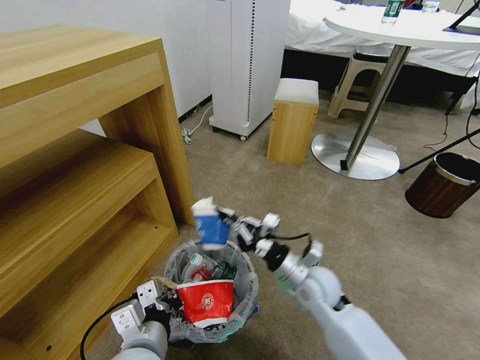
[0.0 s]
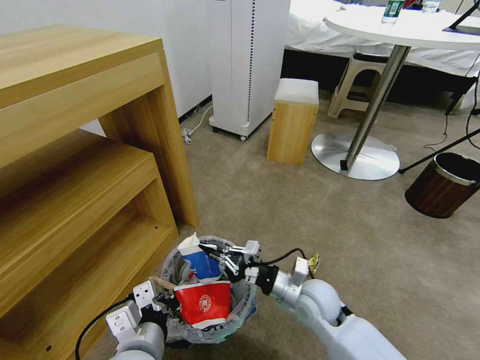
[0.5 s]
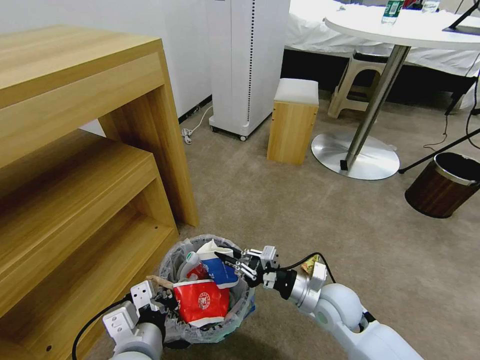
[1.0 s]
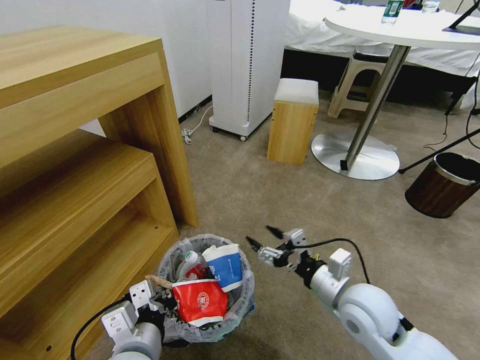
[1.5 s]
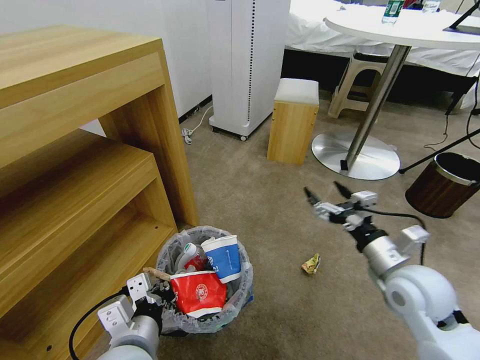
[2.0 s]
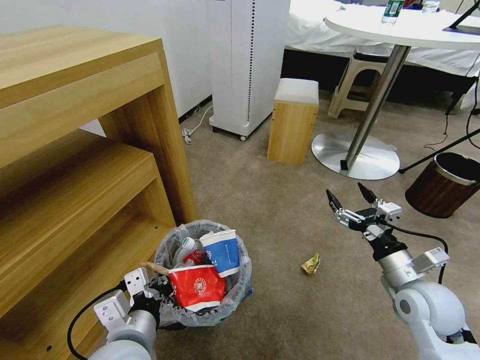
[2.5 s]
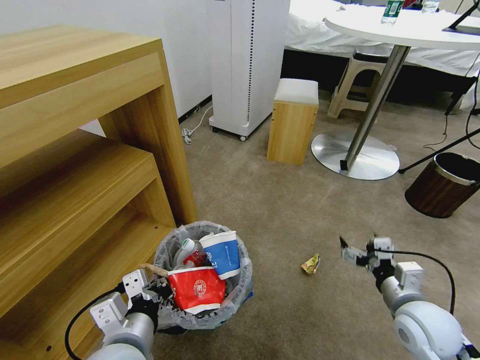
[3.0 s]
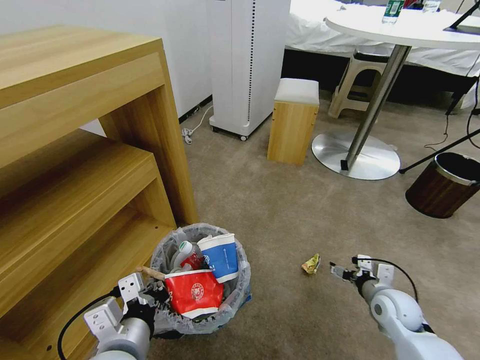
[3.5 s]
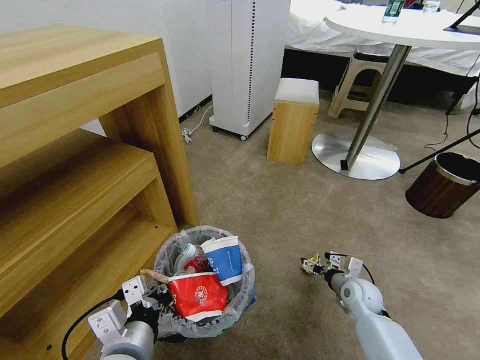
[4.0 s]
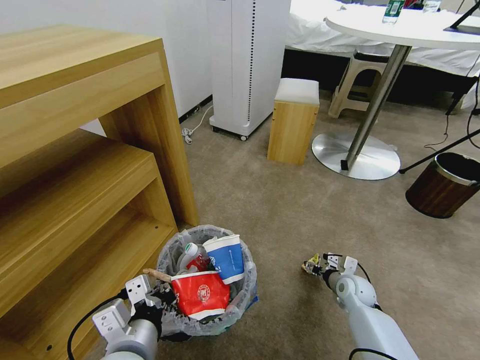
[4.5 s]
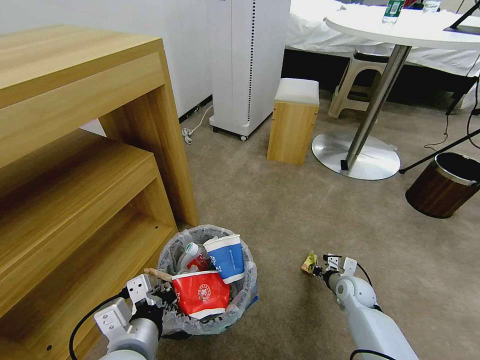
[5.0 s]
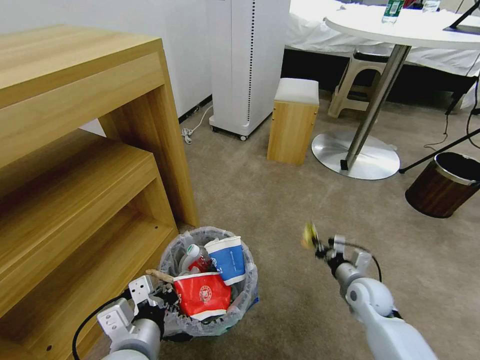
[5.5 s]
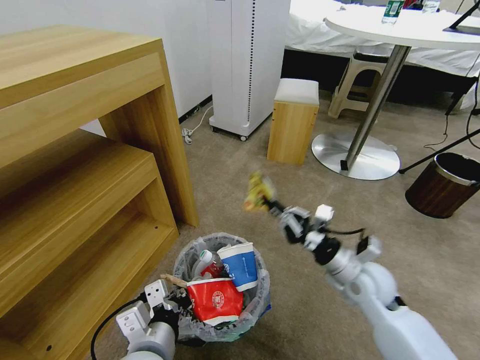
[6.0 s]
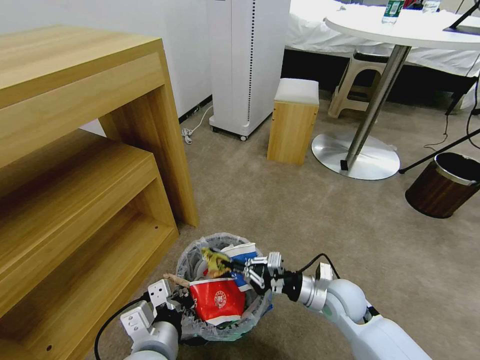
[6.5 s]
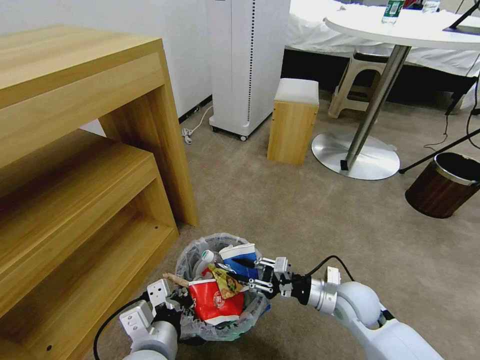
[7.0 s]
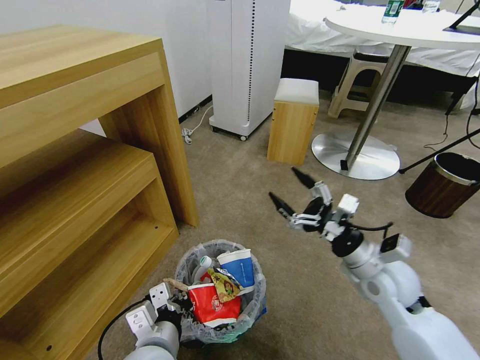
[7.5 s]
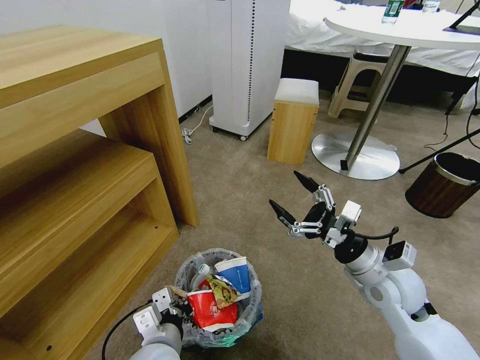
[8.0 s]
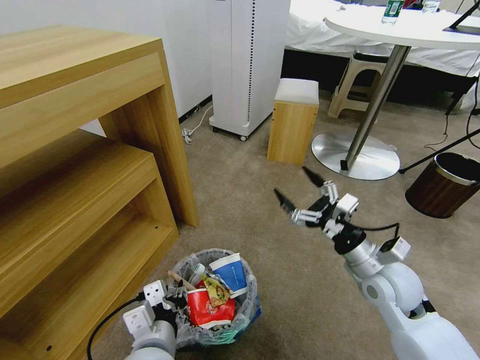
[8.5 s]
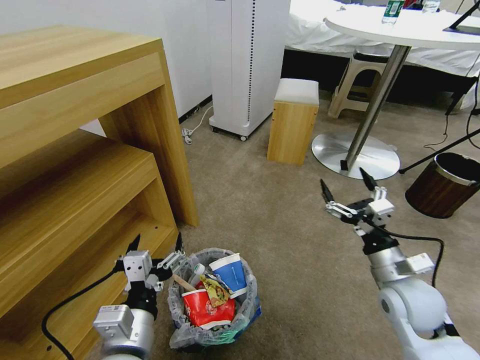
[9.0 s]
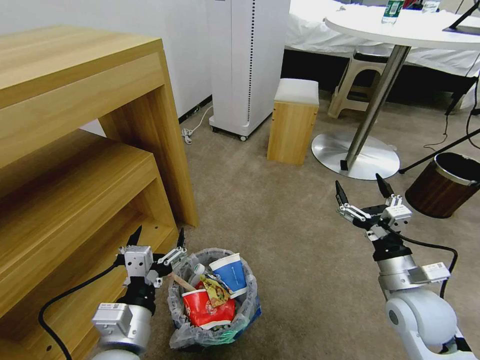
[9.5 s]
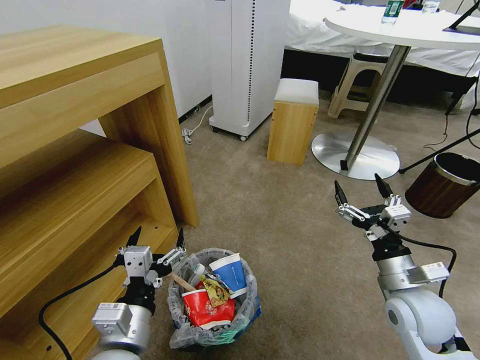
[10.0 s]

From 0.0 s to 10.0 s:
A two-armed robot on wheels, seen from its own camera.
Task of the whole recording: Pick up the trash bin and place the garbage on the floor into it.
From 0.0 s to 2.0 s: The right gripper moves to the right and upward, about 15 cm, and opens its fingers.
From 2.0 s to 4.0 s: The right gripper shifts about 20 cm downward.
From 4.0 s to 6.0 s: The right gripper travels upward and to the left by some 15 cm, and closes its fingers.
From 6.0 s to 8.0 s: The left gripper heads downward, covering roughly 5 cm, while the right gripper changes place by roughly 5 cm, and opens its fingers.
From 8.0 s to 10.0 s: The left gripper heads upward, covering some 5 cm, and opens, while the right gripper ends up approximately 5 cm from where it was.

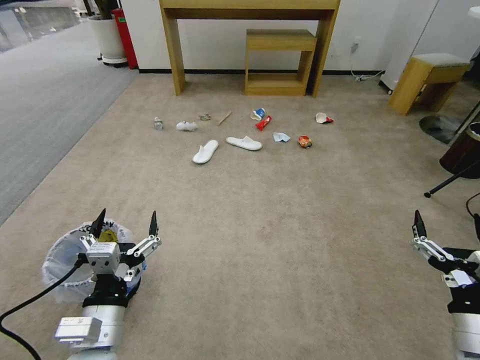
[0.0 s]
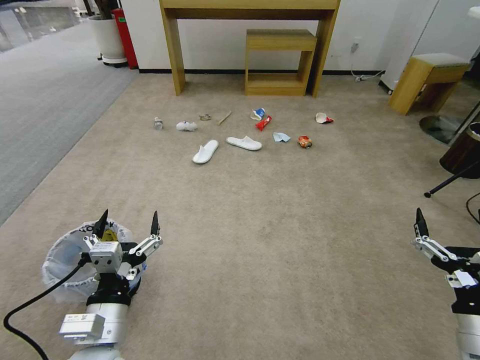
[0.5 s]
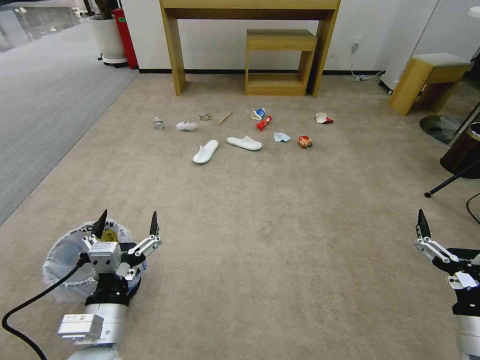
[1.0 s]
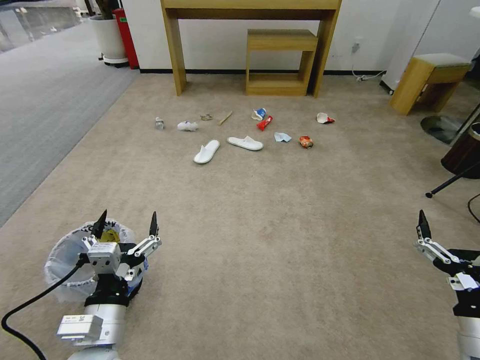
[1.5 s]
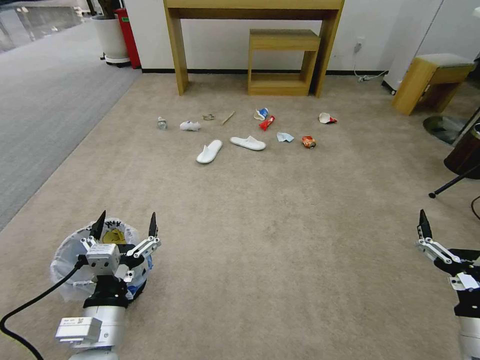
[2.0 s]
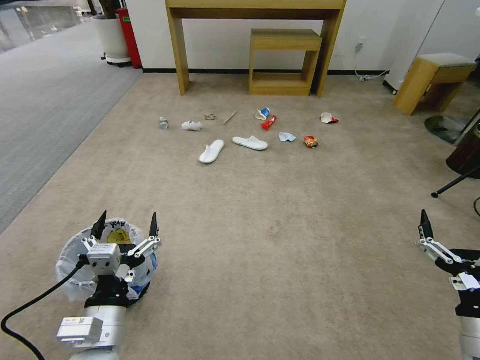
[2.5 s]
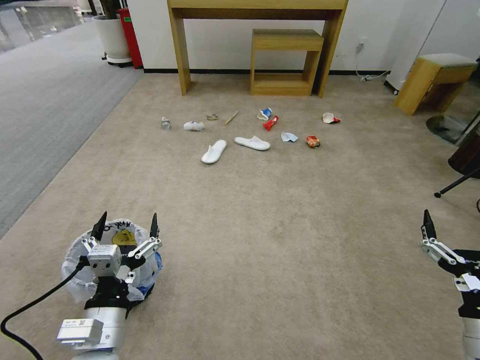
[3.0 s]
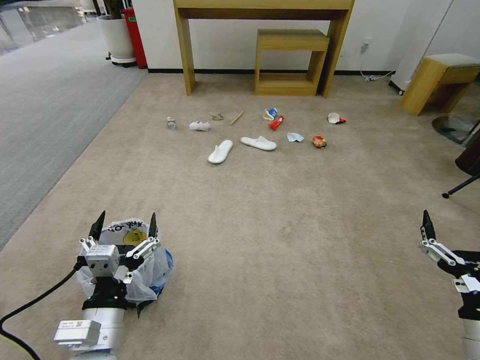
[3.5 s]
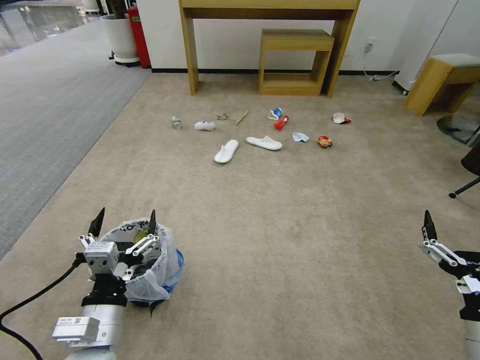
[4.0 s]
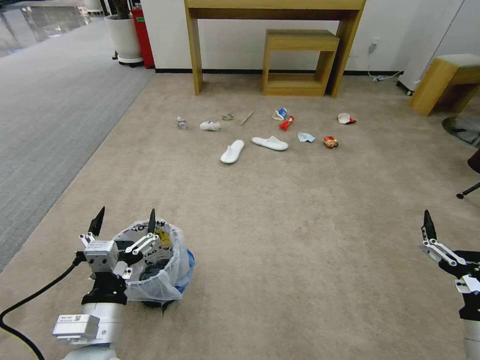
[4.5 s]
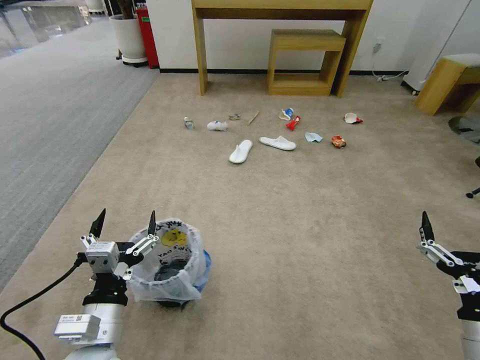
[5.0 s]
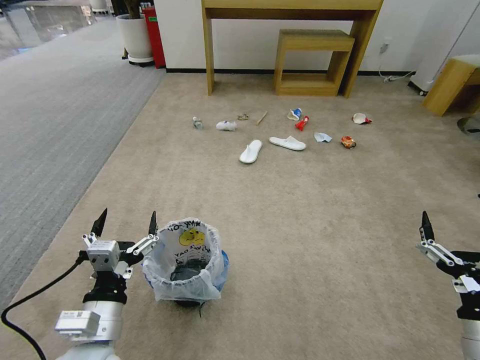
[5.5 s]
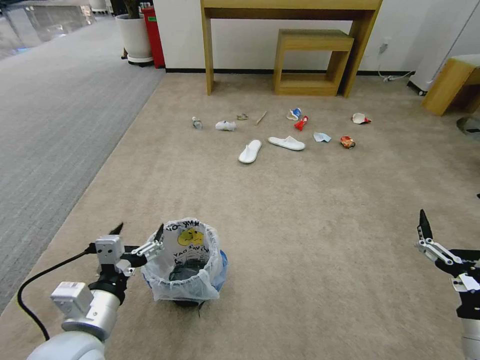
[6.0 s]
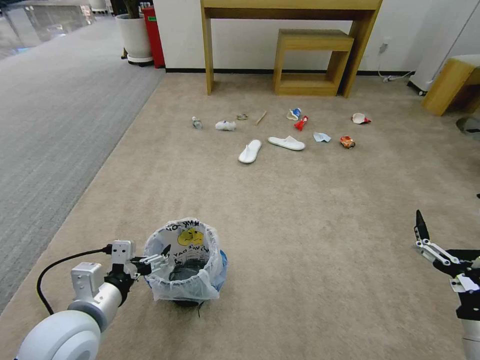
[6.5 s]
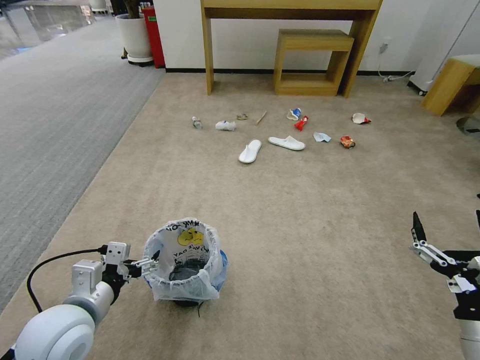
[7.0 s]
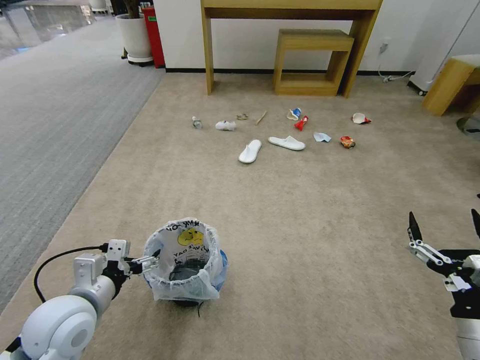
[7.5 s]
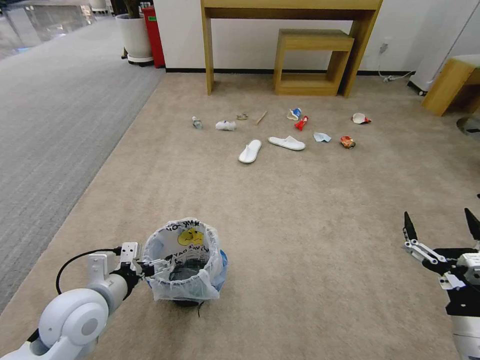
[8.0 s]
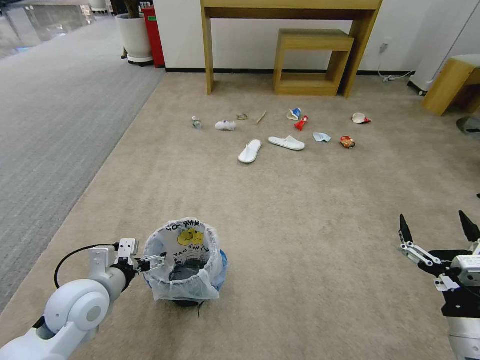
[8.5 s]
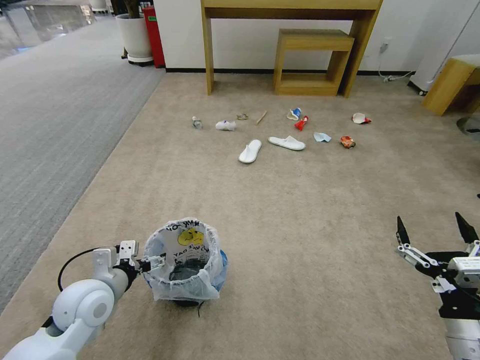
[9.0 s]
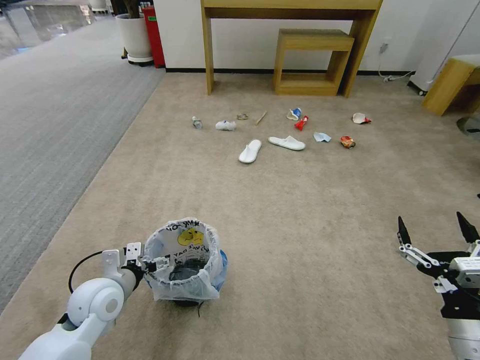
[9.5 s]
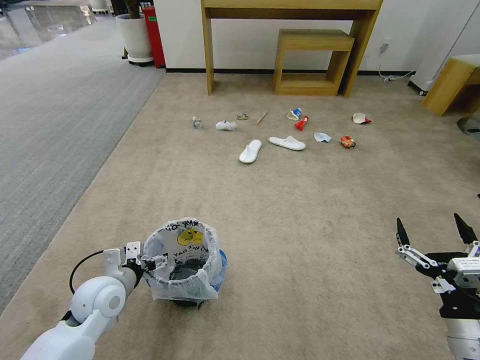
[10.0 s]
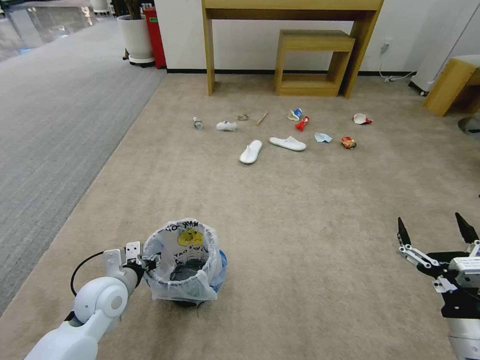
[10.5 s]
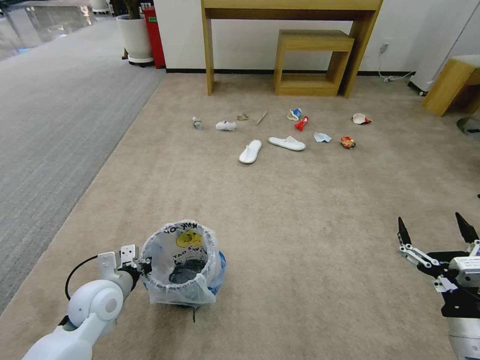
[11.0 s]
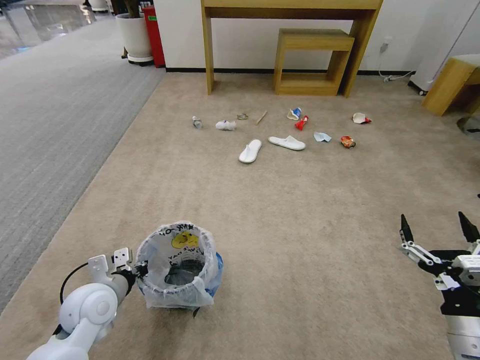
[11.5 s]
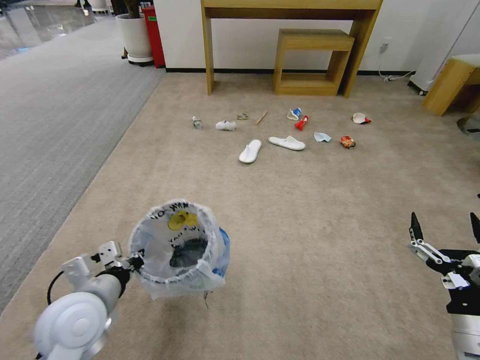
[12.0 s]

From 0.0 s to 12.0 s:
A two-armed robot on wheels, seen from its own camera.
Task of the whole recording: Pick up the trash bin and place the garbage on the floor into it.
From 2.0 s to 4.0 s: The two grippers keep their place.
From 6.0 s to 8.0 s: The left gripper is displaced forward by about 5 cm.
From 8.0 s to 10.0 s: The left gripper goes about 10 cm downward and forward.
From 10.0 s to 12.0 s: The left gripper goes approximately 10 cm upward and backward, and closes its fingers.

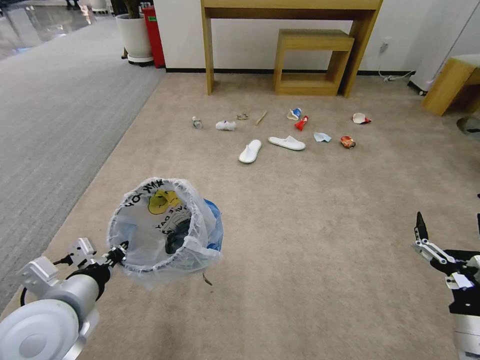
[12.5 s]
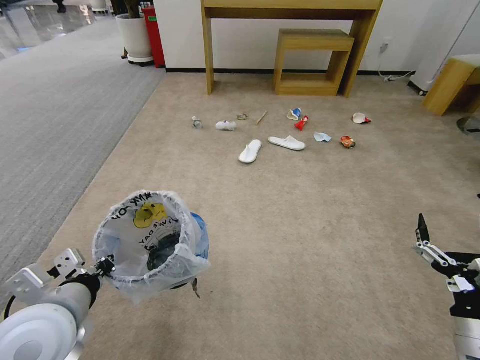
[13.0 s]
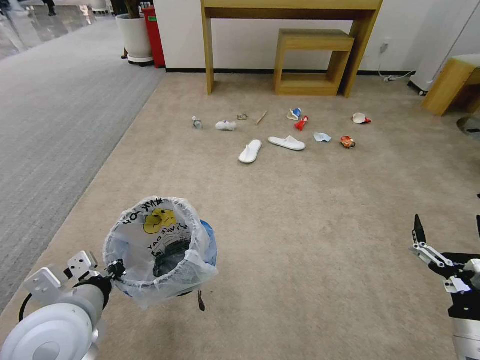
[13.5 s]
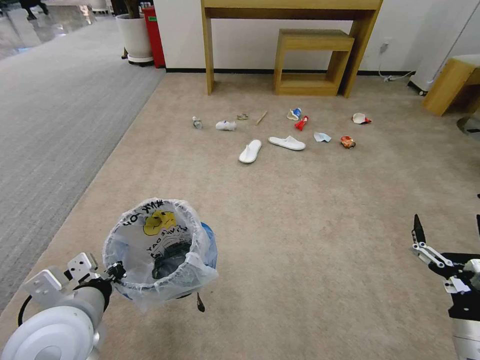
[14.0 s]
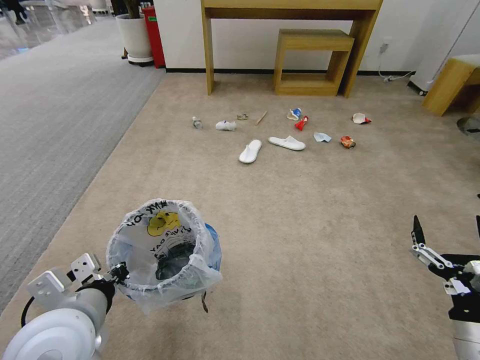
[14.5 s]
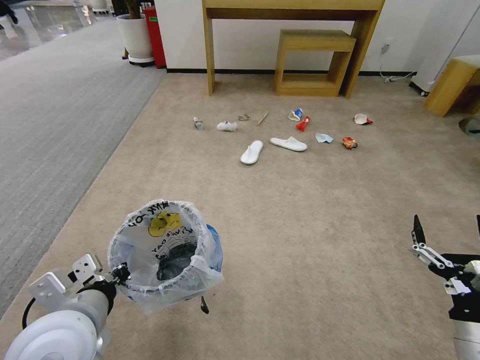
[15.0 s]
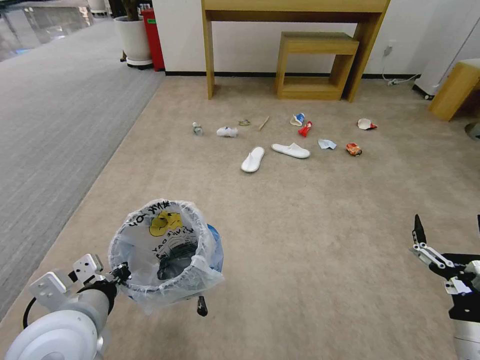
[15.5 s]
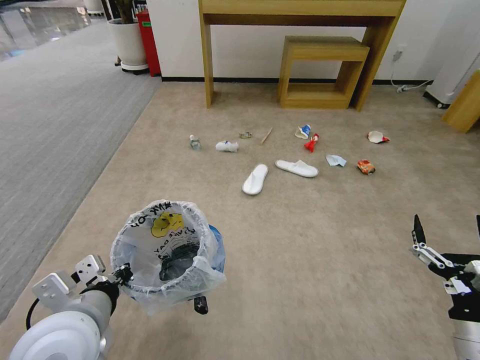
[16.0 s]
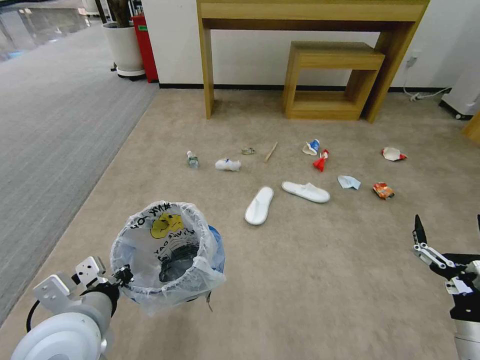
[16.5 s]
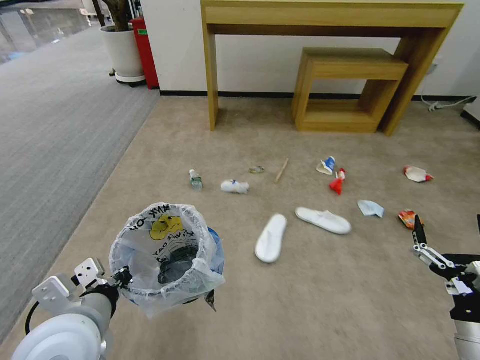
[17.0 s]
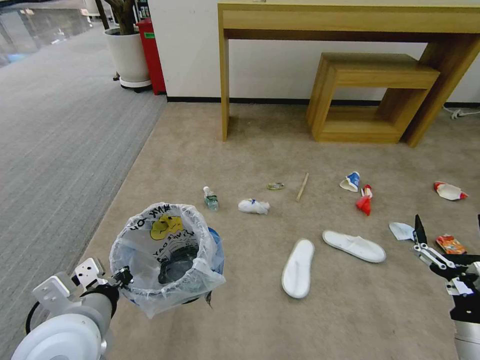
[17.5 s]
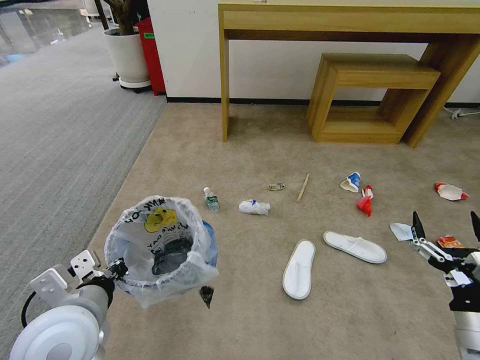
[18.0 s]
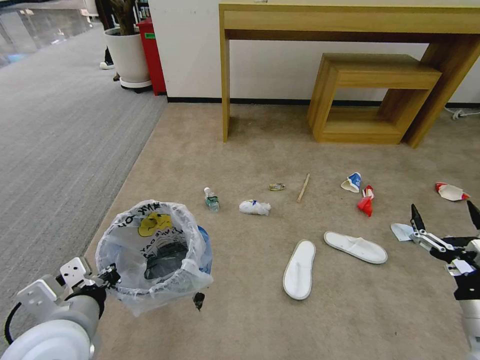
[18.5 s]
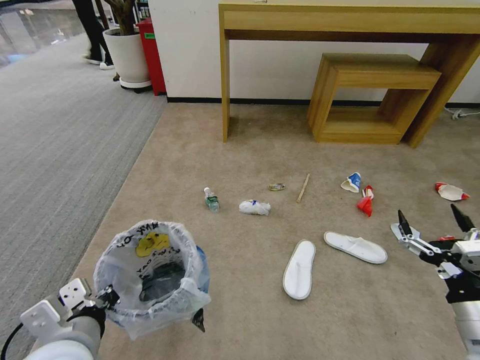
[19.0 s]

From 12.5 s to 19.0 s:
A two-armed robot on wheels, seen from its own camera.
Task of the whole recording: Pick up the trash bin and place the garbage on the floor into it.
From 12.5 s to 14.5 s: There are only small adjustments of the grippers.
